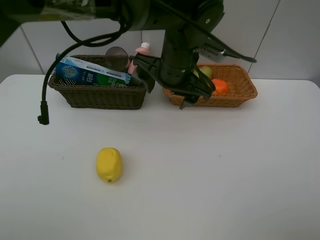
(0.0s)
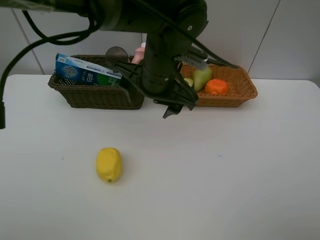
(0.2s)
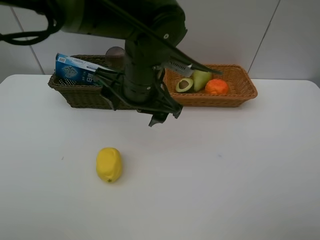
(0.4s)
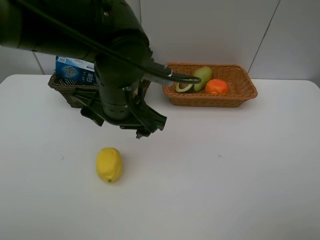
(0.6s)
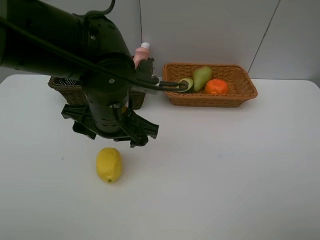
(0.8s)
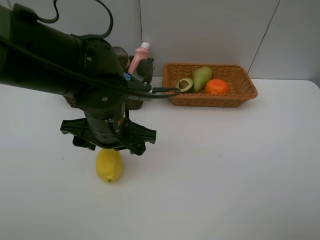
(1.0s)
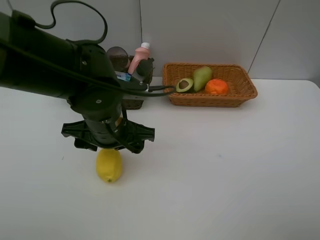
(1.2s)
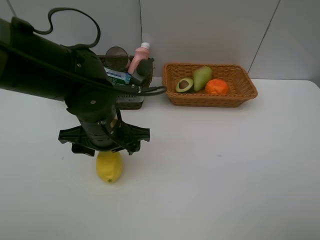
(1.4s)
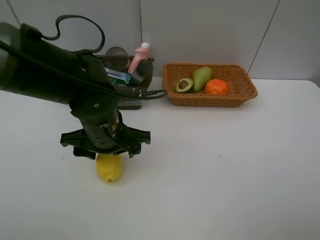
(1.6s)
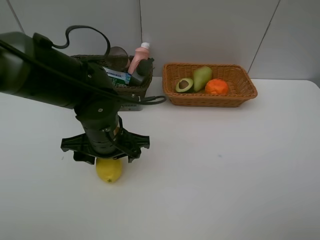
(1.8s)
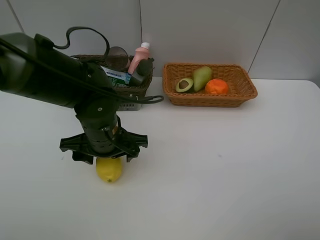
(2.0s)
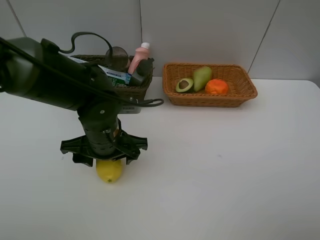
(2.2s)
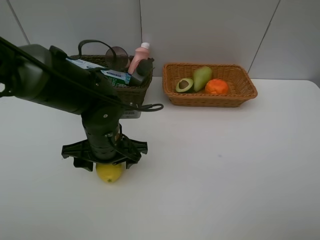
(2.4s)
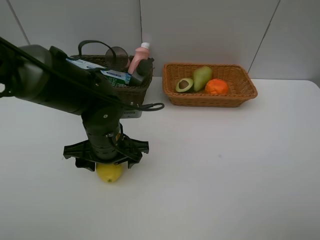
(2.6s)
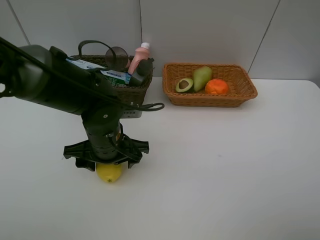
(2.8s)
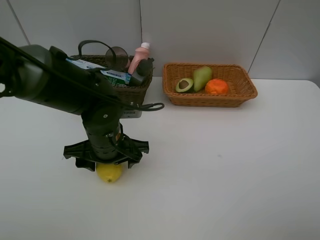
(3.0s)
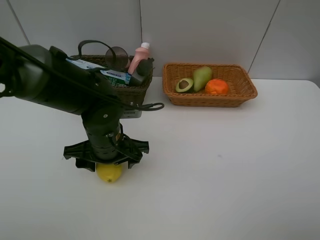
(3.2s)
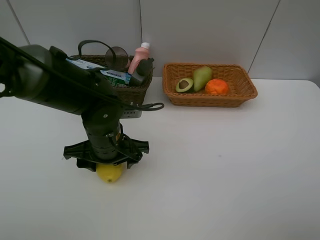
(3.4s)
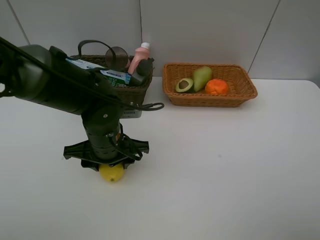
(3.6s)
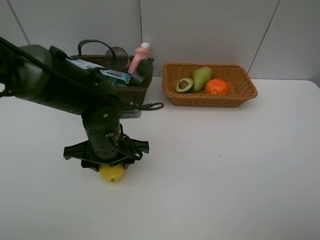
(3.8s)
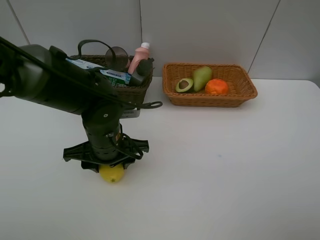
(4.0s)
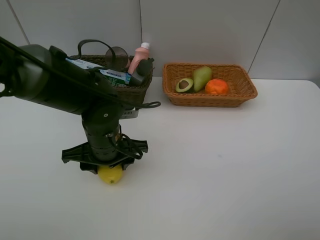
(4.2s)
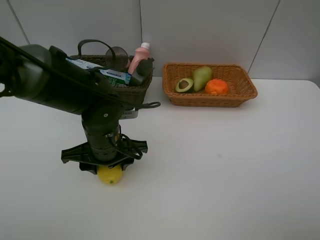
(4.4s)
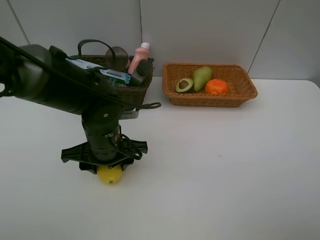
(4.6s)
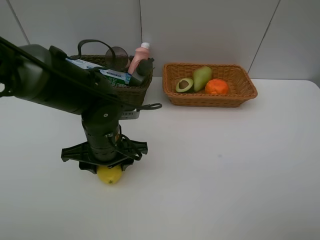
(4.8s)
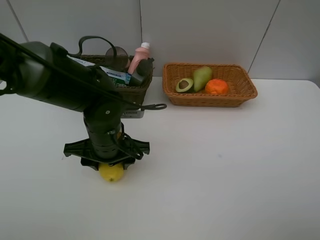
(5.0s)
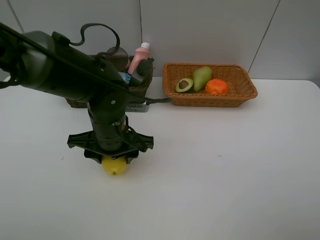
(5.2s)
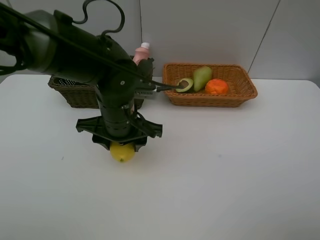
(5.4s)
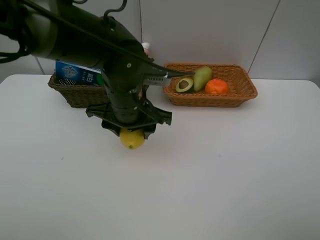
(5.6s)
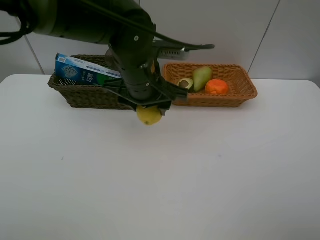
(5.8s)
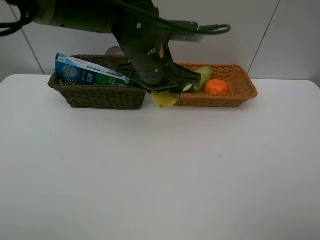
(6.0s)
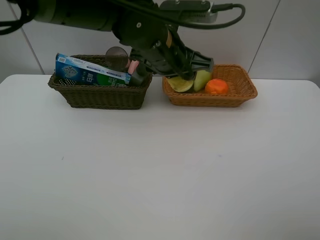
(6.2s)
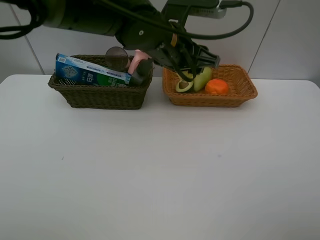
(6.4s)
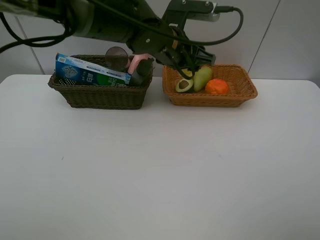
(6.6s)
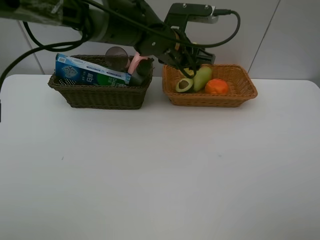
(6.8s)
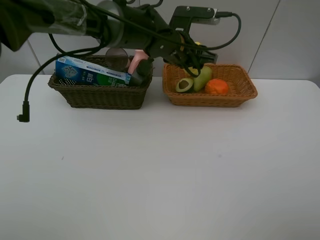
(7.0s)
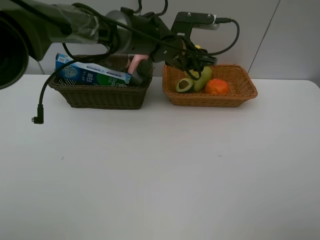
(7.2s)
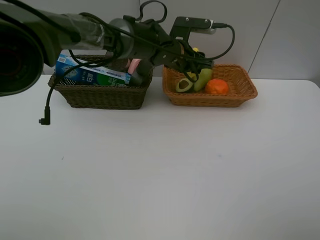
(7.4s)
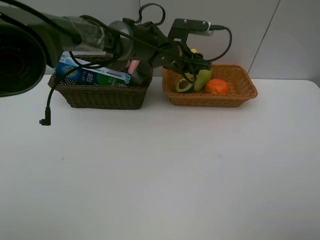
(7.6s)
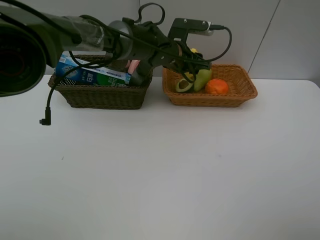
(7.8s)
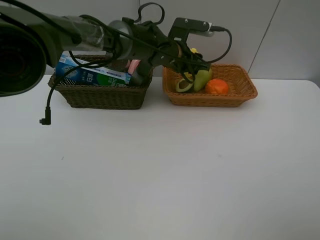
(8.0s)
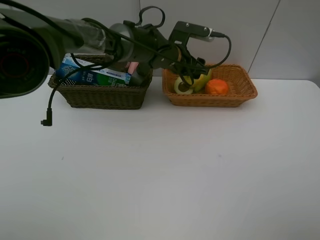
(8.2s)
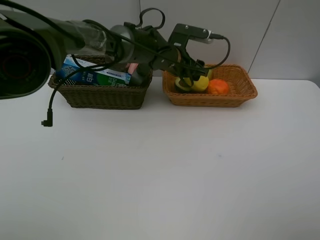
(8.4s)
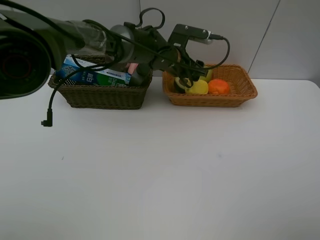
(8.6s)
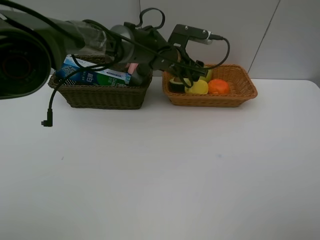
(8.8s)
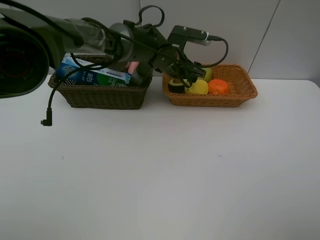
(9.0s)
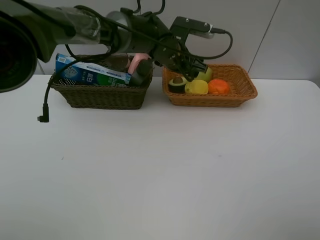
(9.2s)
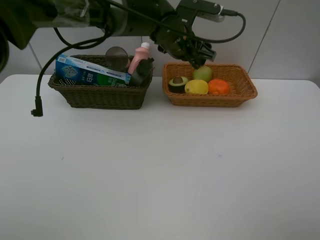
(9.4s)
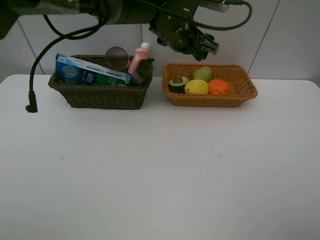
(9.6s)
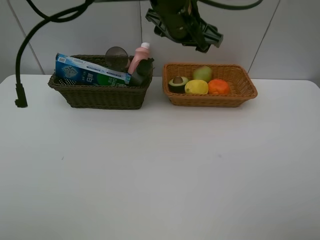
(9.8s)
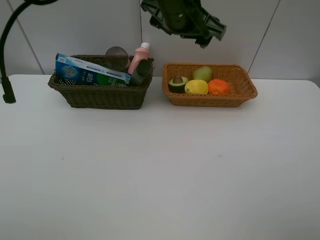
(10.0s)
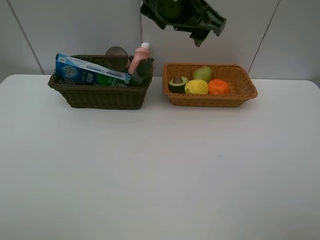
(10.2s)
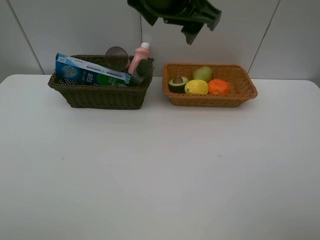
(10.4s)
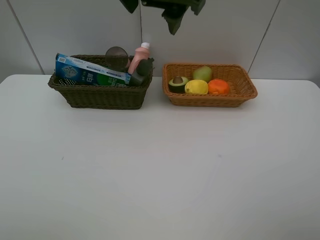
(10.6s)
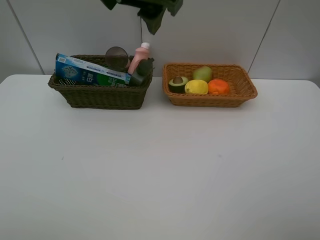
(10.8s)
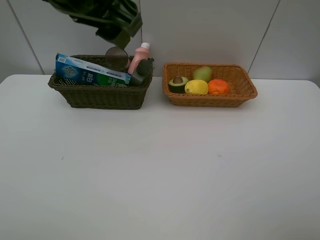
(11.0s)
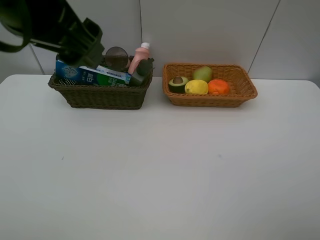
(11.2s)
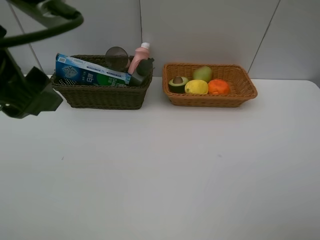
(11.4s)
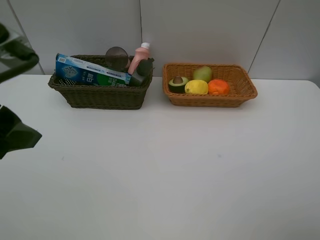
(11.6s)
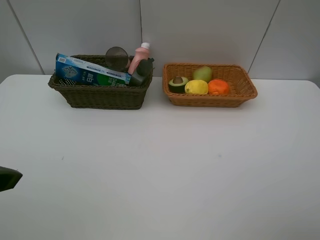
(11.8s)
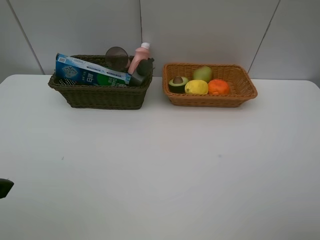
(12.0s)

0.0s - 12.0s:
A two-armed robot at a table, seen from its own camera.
Task of the whole recording: Place multiple objects separately in different baskets.
Step, 0.0s - 5.2s: Pick up the lemon with left gripper.
Step, 5.4s - 9.2s: Place the lemon in the light basket with left gripper.
0.0s - 1.6s: The left gripper heads to the left, backward and downward, covering roughly 15 cm.
1.6s - 3.0s: The grippers move only a little.
3.0s - 4.4s: Both grippers stay about where they are.
4.4s - 6.0s: The left gripper shifts some 15 cm upward, to the right and forward.
6.0s - 7.6s: The left gripper shifts roughly 15 cm forward and downward.
7.6s - 9.0s: The grippers stay close to where they were, moving slightly.
9.0s - 10.4s: The left gripper heads upward and backward, covering some 25 cm.
10.4s - 12.0s: The left gripper moves to the left and backward, roughly 35 cm.

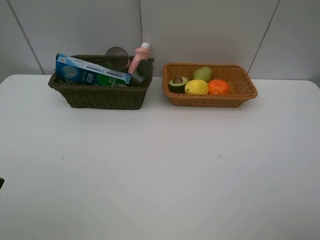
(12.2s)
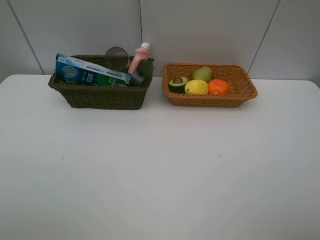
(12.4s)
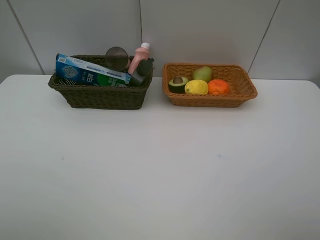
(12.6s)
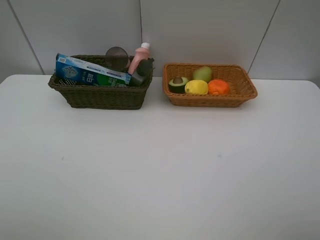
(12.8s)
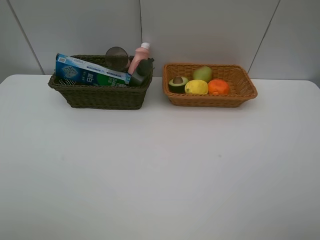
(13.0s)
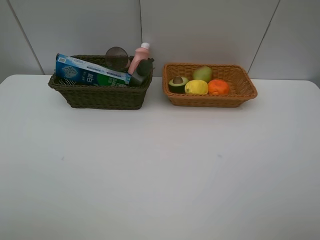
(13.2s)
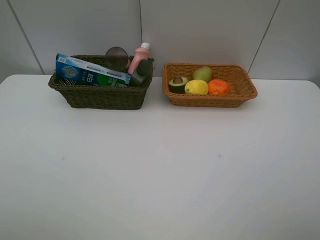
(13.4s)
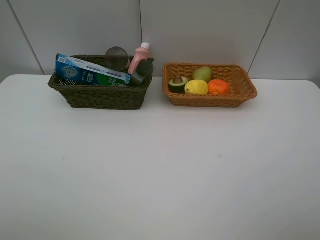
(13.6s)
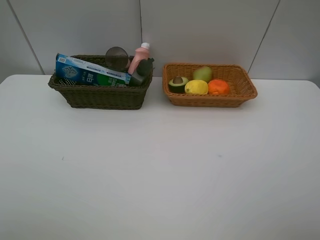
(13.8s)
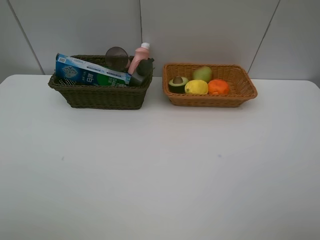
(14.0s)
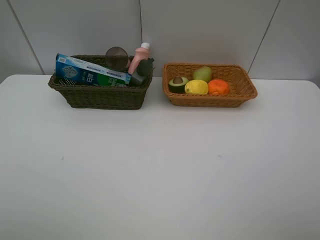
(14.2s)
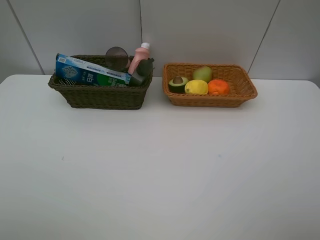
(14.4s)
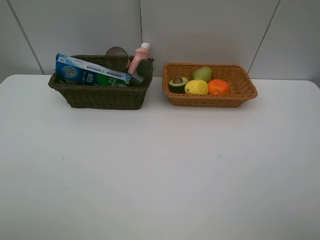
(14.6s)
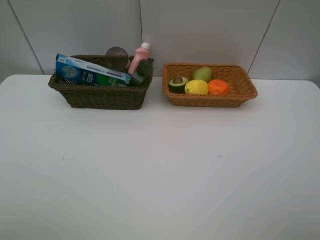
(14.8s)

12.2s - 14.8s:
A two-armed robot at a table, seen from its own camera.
Task of the whole recording: Place multiple objects separately in different baskets.
13.4s - 14.8s: Neither gripper changes place.
